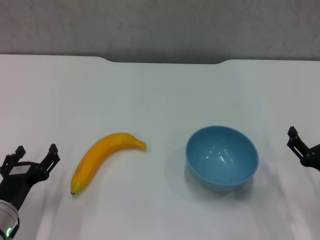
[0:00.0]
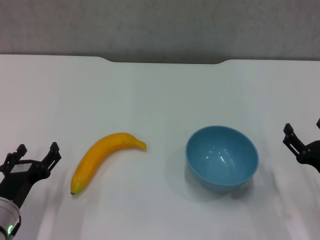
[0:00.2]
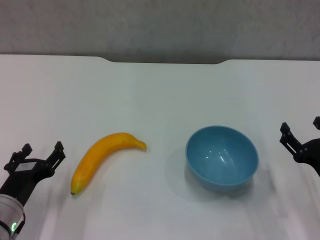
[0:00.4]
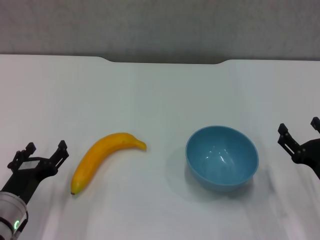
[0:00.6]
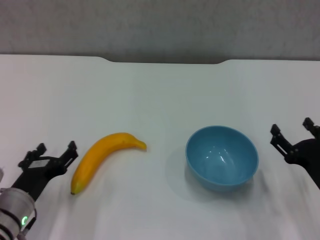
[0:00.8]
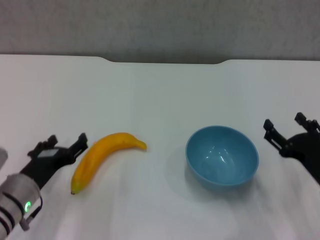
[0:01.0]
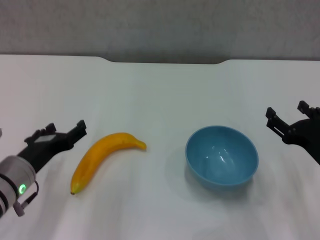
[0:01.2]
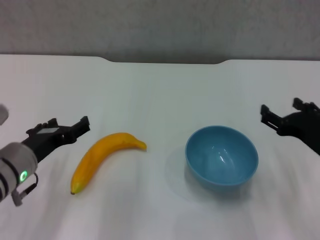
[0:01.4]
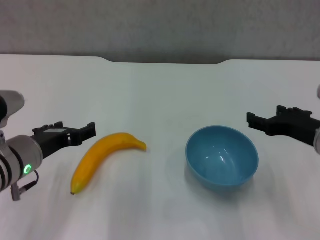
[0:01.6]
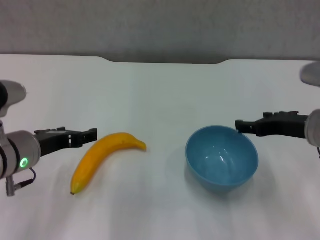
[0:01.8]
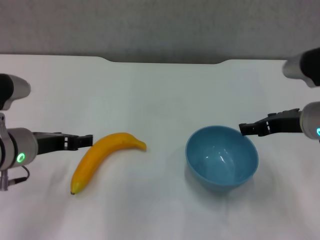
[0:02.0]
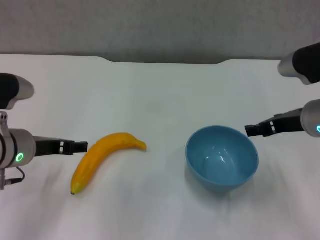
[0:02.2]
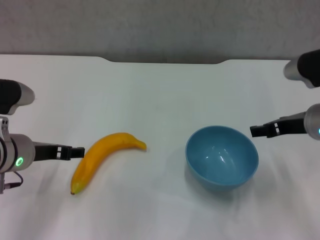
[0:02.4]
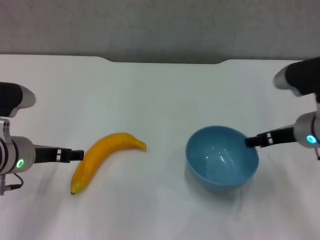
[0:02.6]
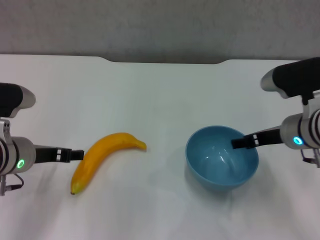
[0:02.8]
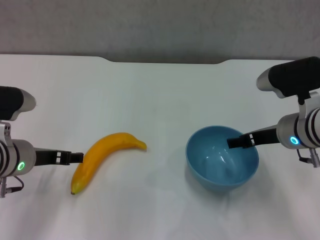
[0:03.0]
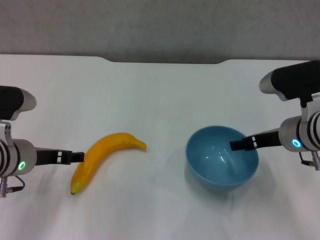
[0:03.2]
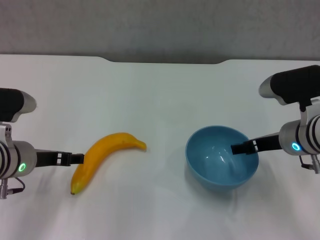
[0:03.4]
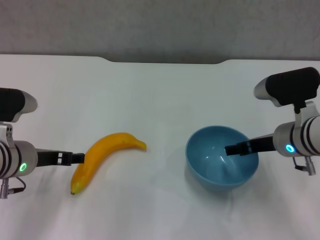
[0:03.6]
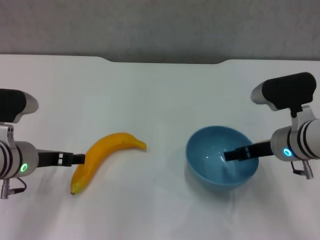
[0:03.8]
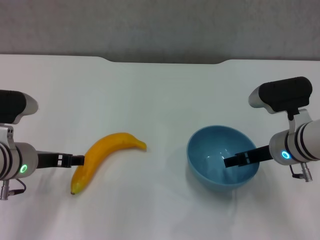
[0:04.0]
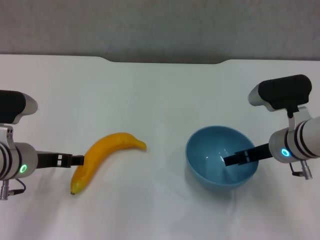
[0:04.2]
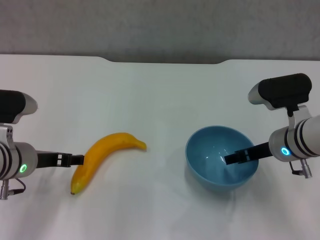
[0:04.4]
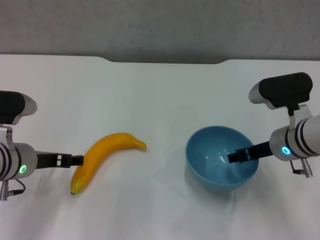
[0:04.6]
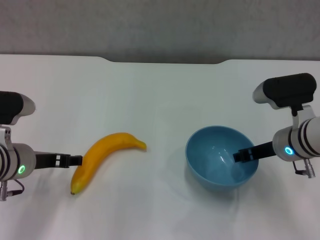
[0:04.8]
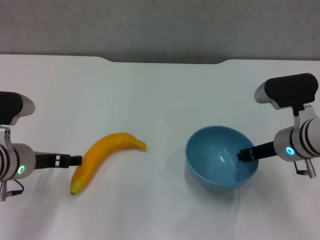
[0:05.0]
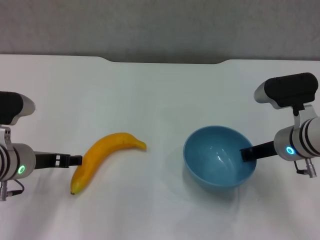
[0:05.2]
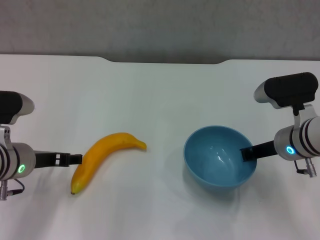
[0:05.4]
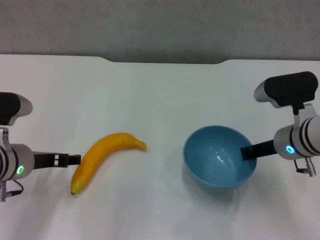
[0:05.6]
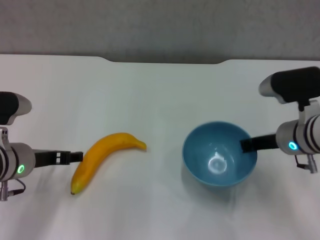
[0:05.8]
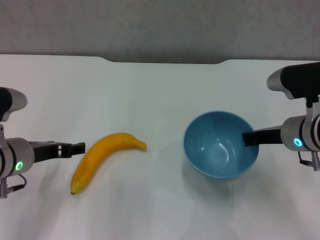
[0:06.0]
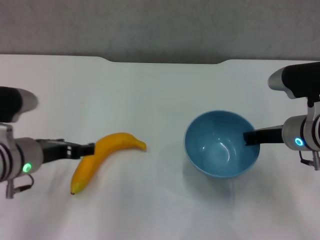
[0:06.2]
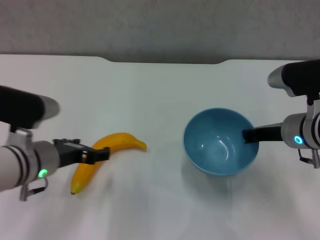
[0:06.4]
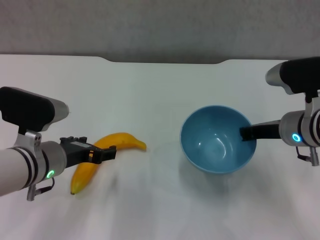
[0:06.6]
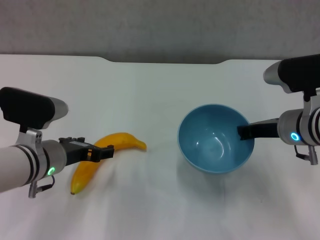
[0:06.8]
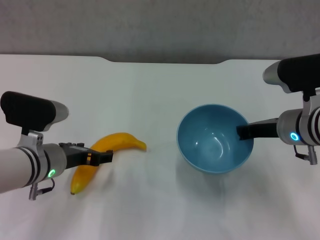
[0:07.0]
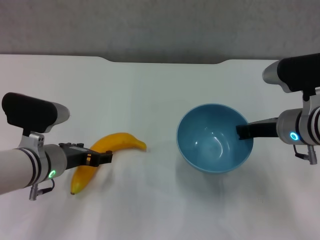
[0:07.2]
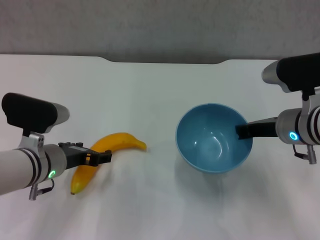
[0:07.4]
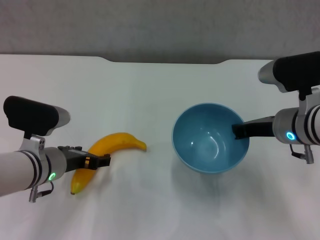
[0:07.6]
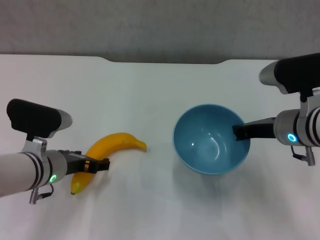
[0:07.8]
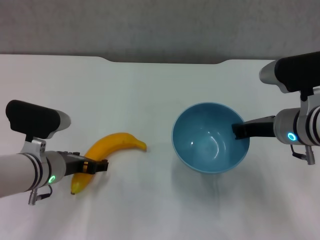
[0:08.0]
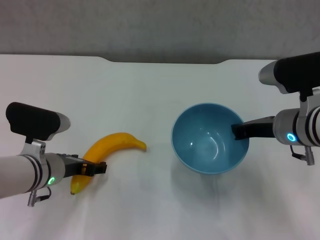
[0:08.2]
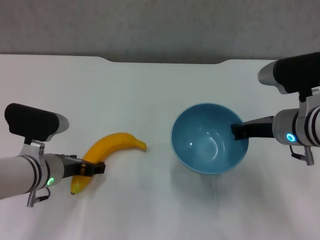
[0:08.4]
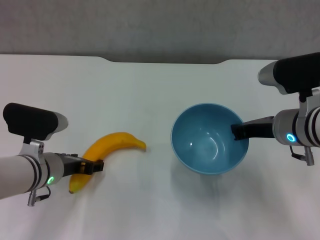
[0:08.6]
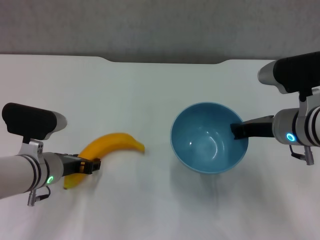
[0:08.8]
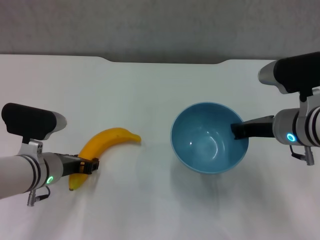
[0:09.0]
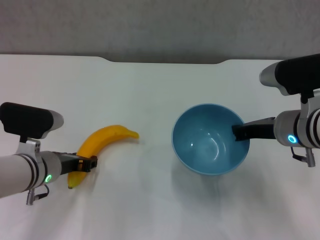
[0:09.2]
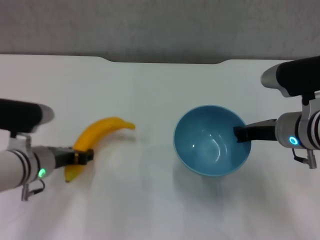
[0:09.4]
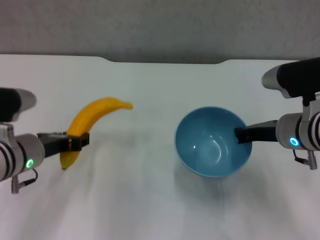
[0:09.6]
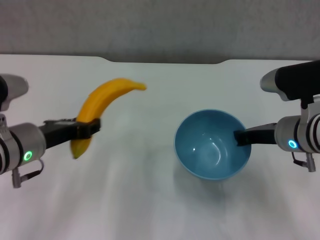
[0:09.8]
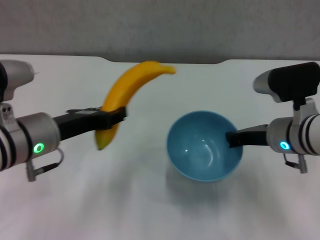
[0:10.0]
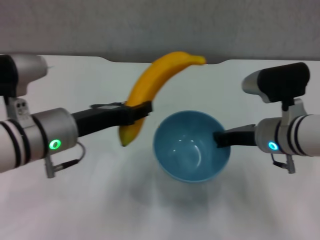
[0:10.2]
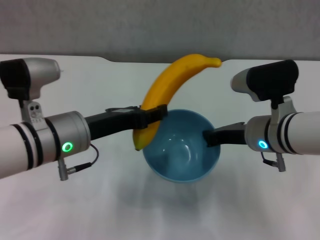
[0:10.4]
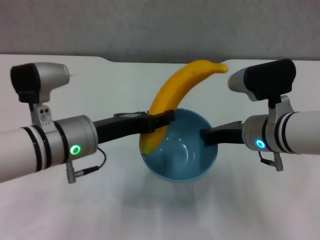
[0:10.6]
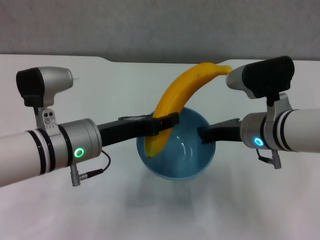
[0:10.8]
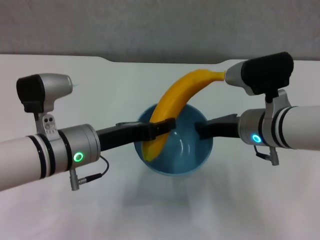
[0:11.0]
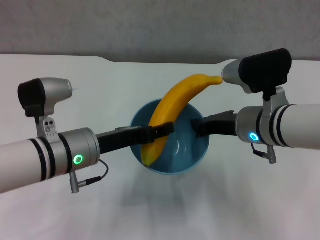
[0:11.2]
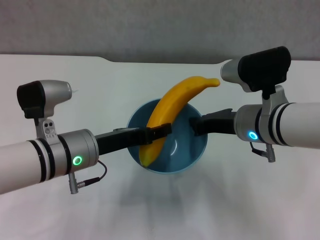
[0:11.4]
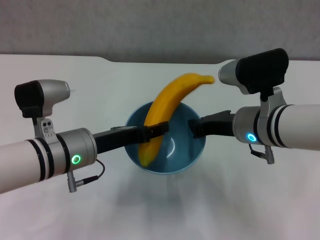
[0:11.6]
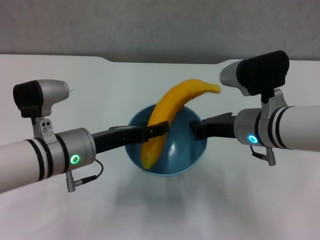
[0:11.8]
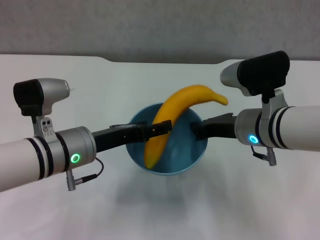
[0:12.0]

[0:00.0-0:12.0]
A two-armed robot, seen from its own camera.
Step, 0:00.0 to 0:05.6: Grasp the blue bowl with right gripper.
Step, 0:05.8 to 0:06.6: Lift the blue bowl with right gripper.
Step, 0:06.8 to 0:08.8: Grasp the banana with left gripper.
0:00.0 to 0:01.6: Both grippers move upward and forward, approximately 15 cm.
0:01.6 to 0:03.0: The right gripper shifts approximately 5 cm forward.
0:03.0 to 0:04.4: The grippers stay close to where they were, moving slightly.
0:04.4 to 0:06.0: The right gripper closes its fingers.
0:06.0 to 0:07.6: The left gripper shifts by about 5 cm.
0:07.6 to 0:09.0: The left gripper closes.
0:09.0 to 0:10.4: The left gripper goes approximately 10 cm upward and to the right.
0:10.4 to 0:12.0: The left gripper opens up.

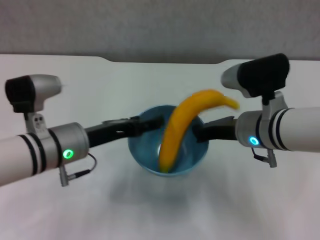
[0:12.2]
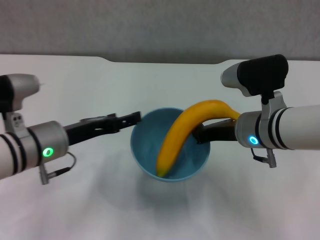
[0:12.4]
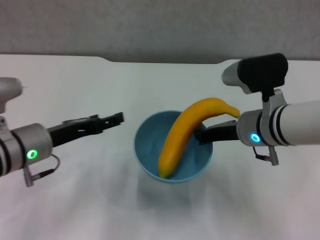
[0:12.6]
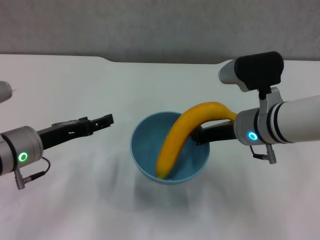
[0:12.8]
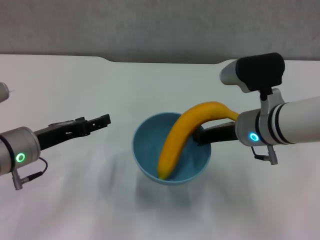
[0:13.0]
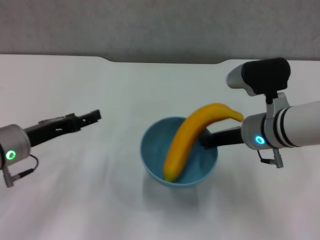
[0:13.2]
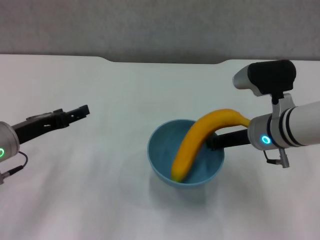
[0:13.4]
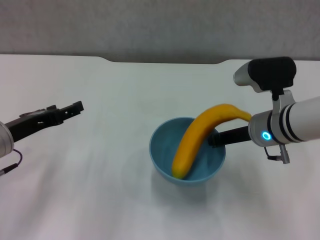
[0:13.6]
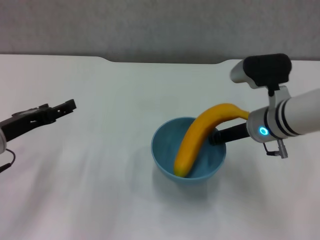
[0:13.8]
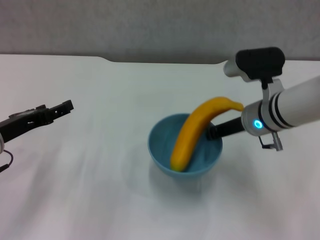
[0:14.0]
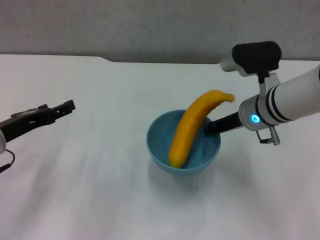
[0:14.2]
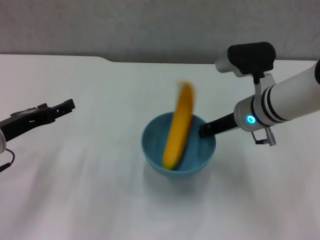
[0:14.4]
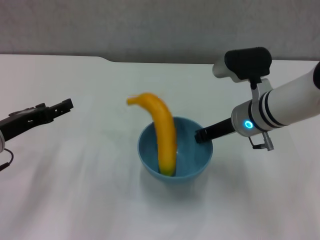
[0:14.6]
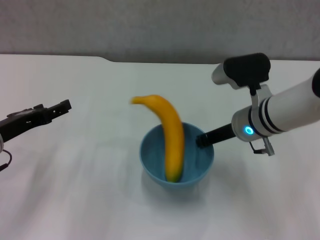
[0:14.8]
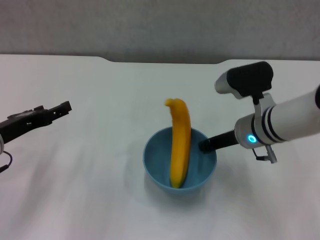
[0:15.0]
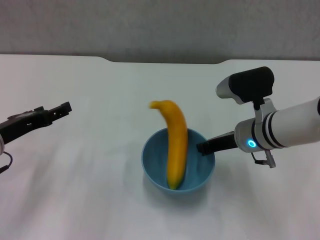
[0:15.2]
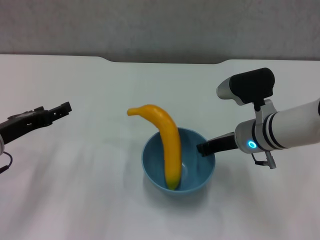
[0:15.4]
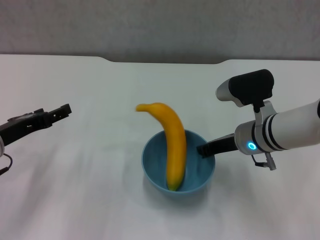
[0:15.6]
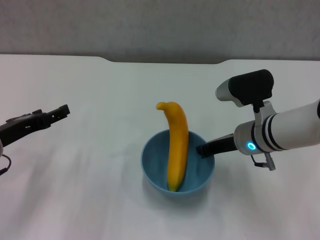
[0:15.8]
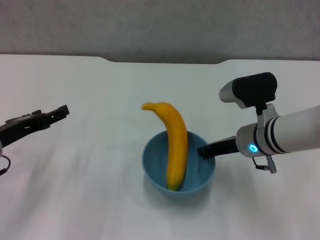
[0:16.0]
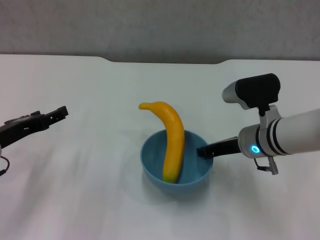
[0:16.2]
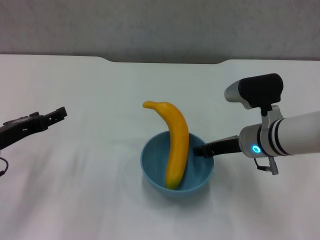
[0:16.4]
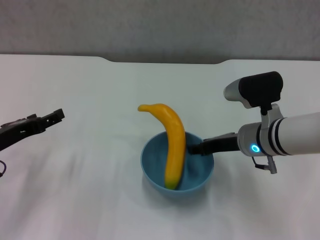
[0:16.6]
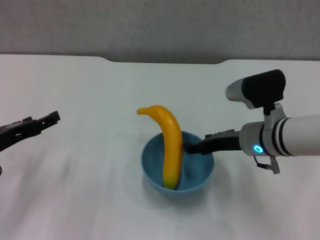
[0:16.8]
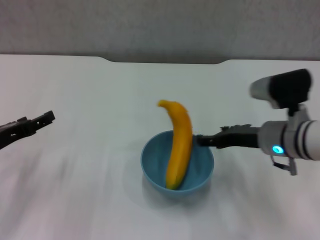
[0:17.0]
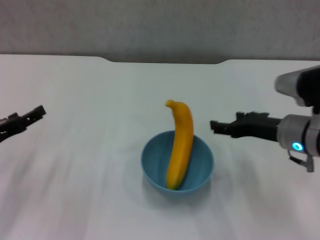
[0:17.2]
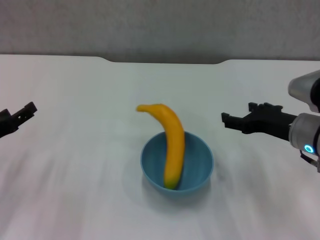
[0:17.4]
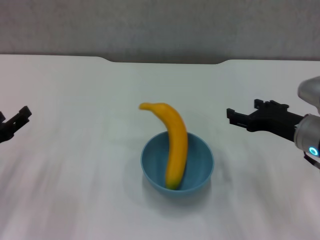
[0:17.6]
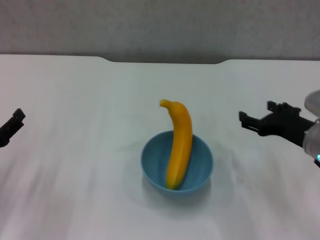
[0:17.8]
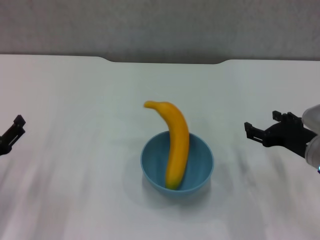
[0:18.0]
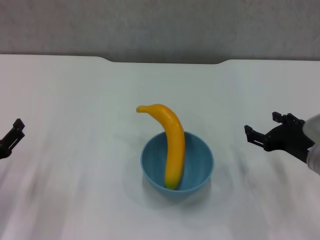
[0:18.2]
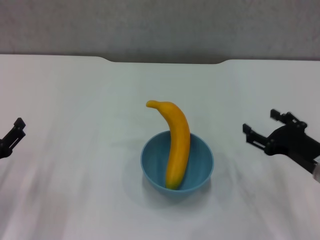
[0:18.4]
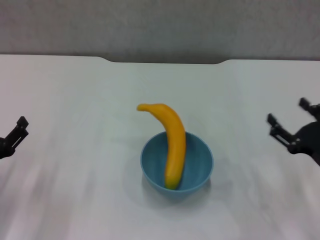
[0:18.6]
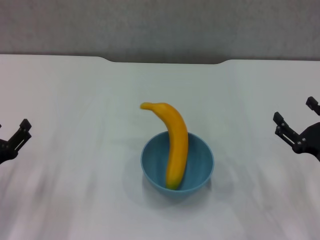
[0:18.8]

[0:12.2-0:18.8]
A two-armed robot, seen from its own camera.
Step, 0:12.4 to 0:17.0: Place the bowl on the table with right gripper.
0:12.2 to 0:13.8: The left gripper goes roughly 10 cm to the left.
0:13.8 to 0:15.4: There are only small adjustments of the grippers.
0:15.4 to 0:17.2: The right gripper shifts some 5 cm to the right, and opens.
0:17.2 to 0:18.8: The left gripper shifts roughly 5 cm downward. Meanwhile the right gripper is displaced backward, to the right and downward by about 15 cm.
